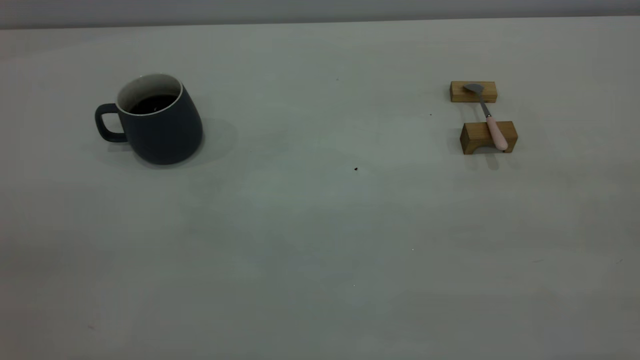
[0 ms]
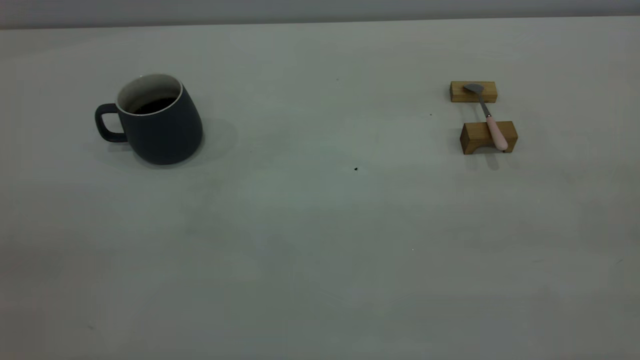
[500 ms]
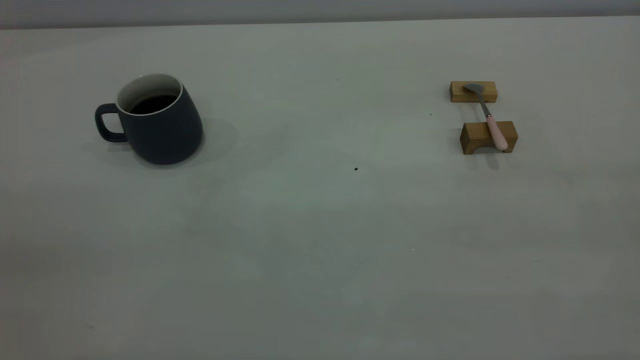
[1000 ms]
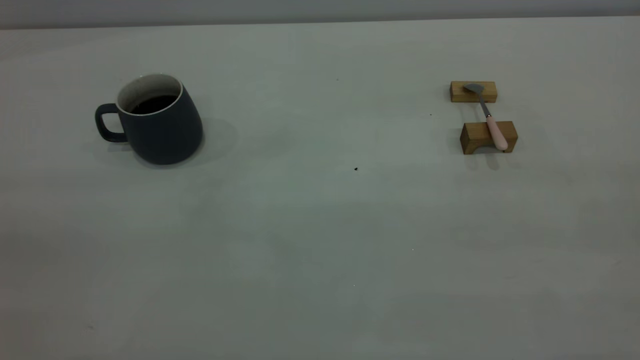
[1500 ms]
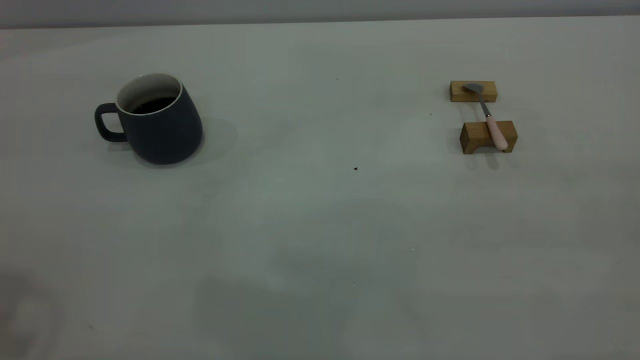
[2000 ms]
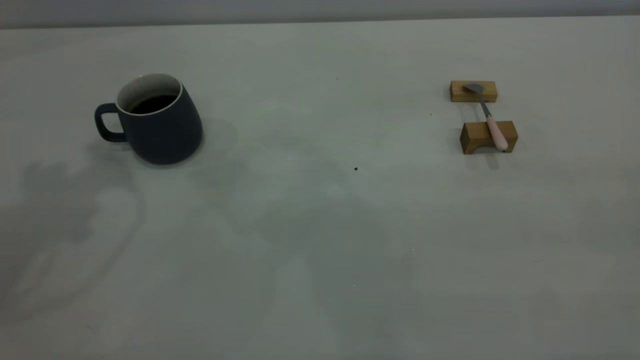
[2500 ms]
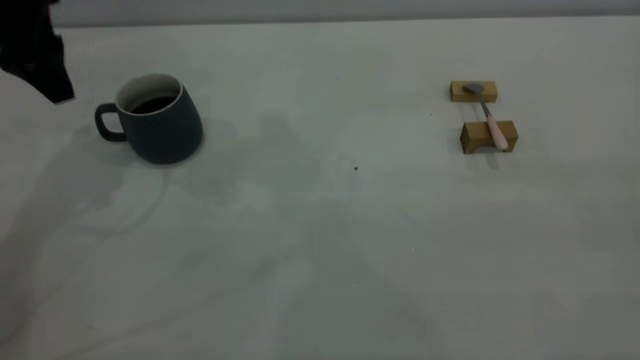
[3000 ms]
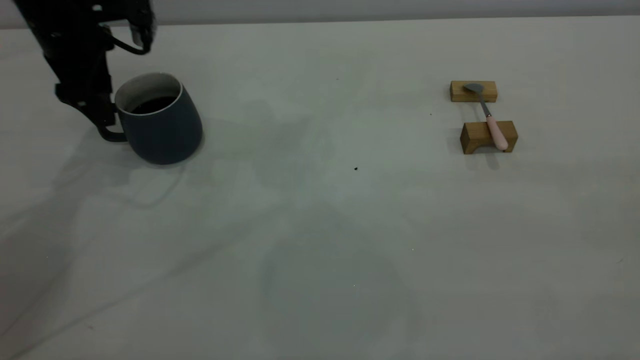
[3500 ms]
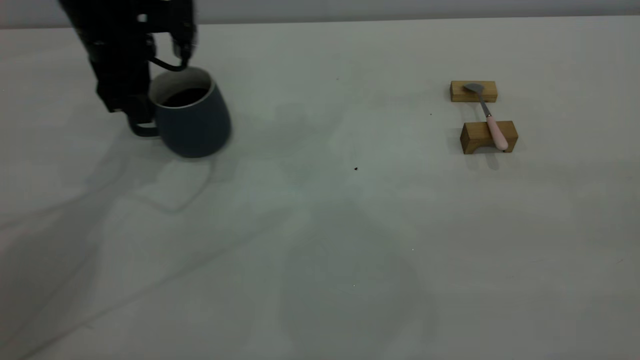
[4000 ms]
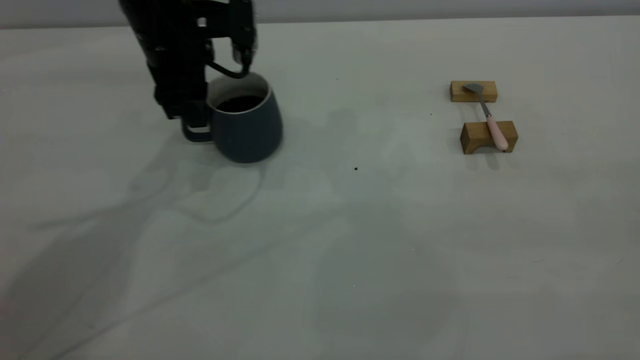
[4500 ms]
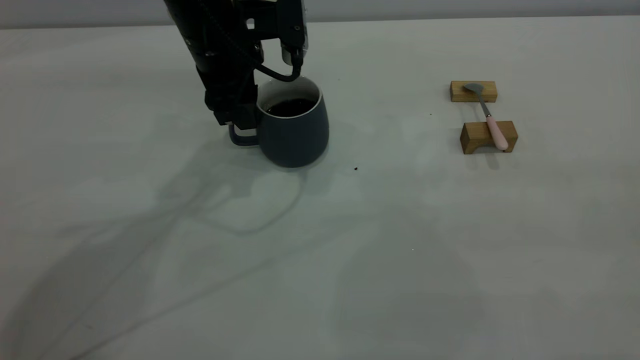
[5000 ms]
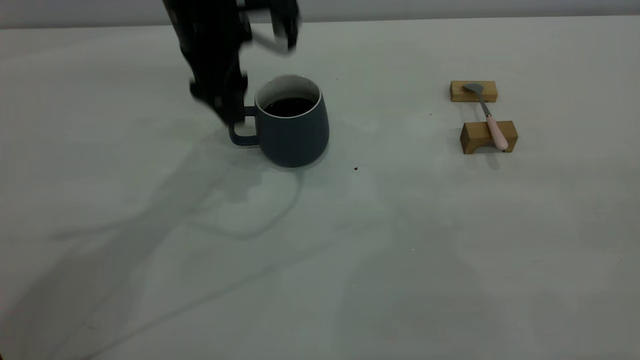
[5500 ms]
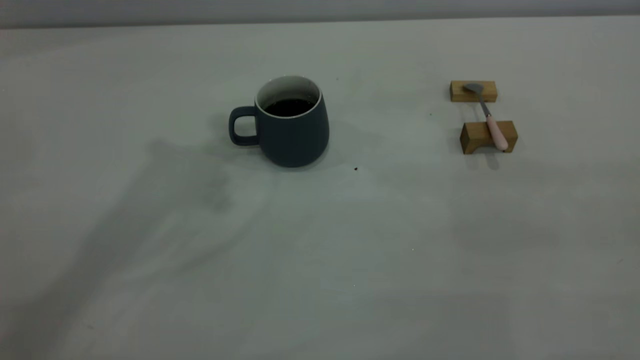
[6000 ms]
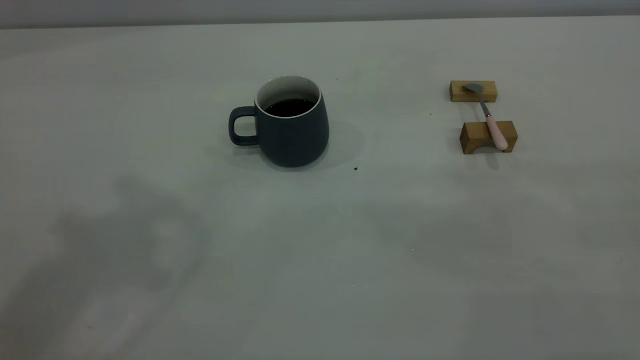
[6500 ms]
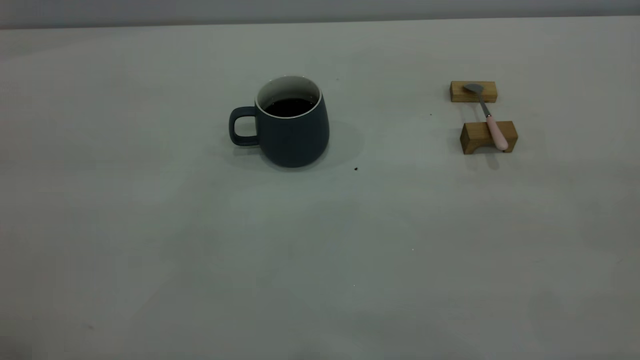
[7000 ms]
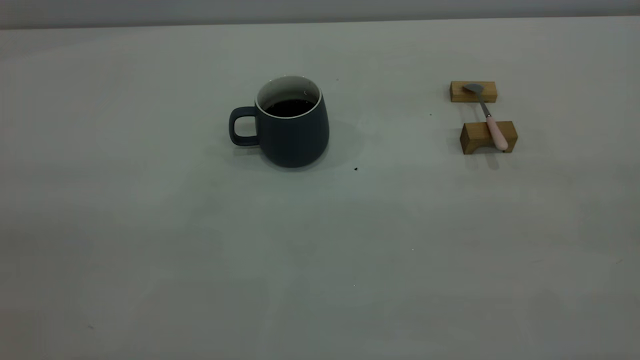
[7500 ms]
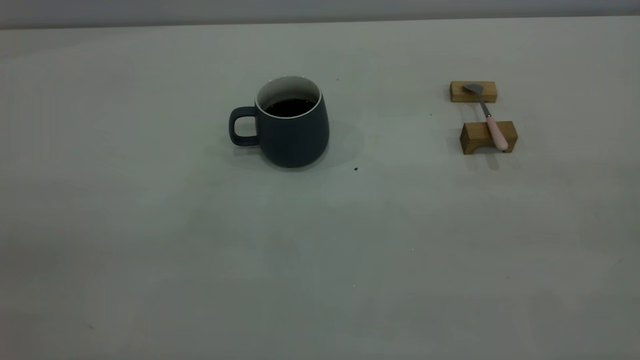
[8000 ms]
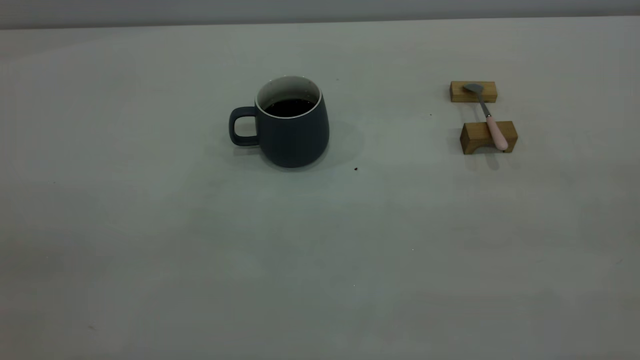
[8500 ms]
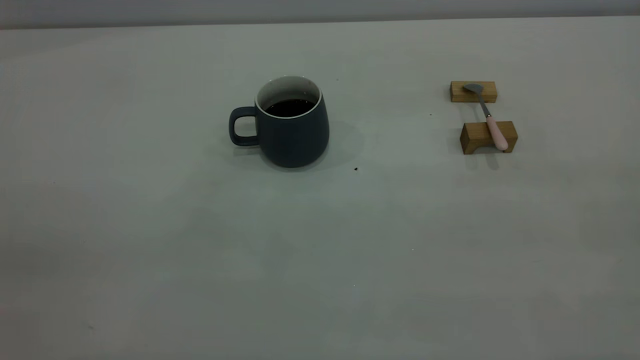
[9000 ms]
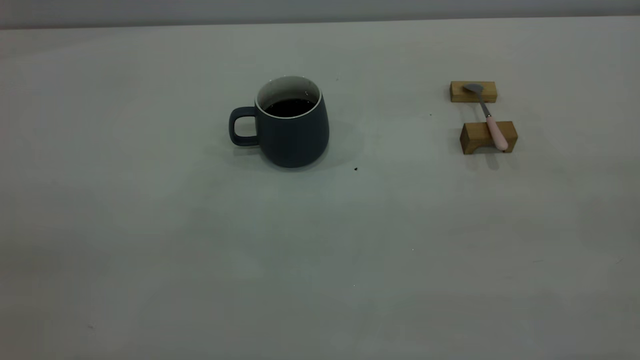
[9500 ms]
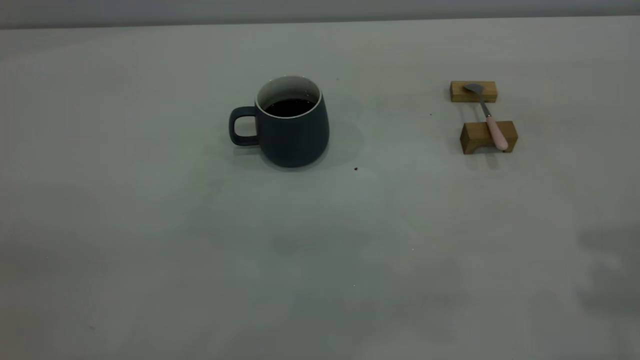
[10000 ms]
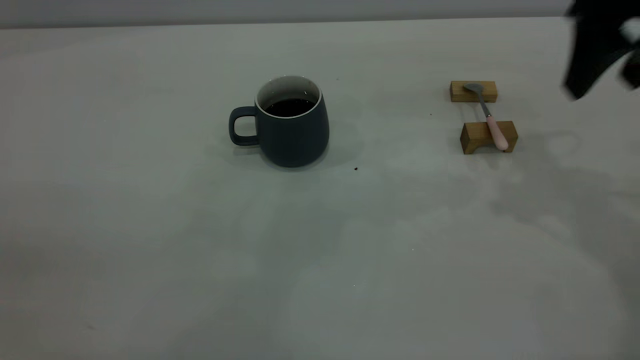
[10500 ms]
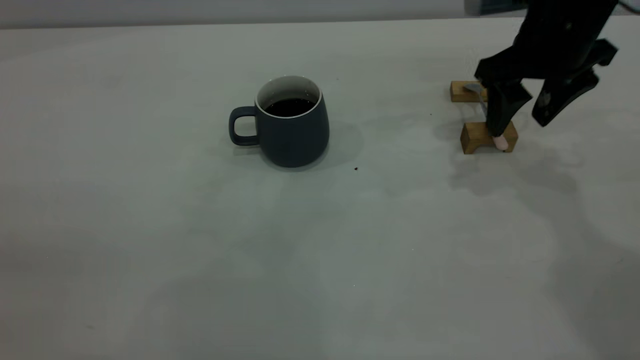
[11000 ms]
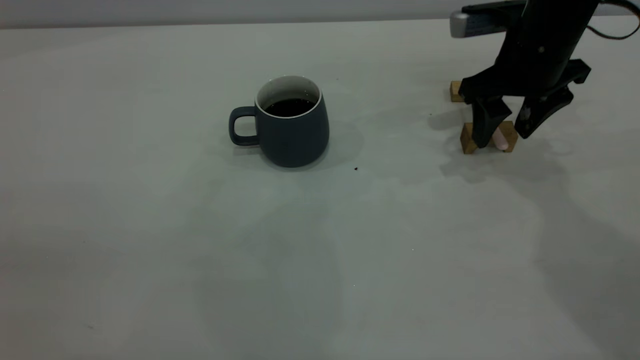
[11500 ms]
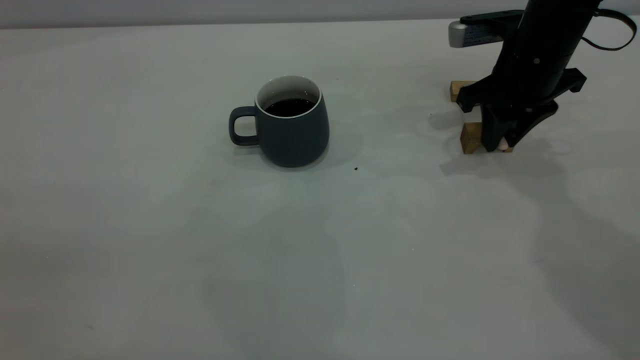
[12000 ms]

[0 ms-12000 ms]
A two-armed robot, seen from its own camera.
Step, 0 ms to 5500 ms: Move the cup with coffee to the center of view.
2000 ms to 4000 ms: The left gripper travels forward and downward by roughly 35 cm, and opens, then closes once more.
4000 ms to 6000 ms: The left gripper goes roughly 25 cm upward, and opens, then closes again.
10000 ms to 12000 ms: The right gripper moves downward and forward, about 30 cm, and closes.

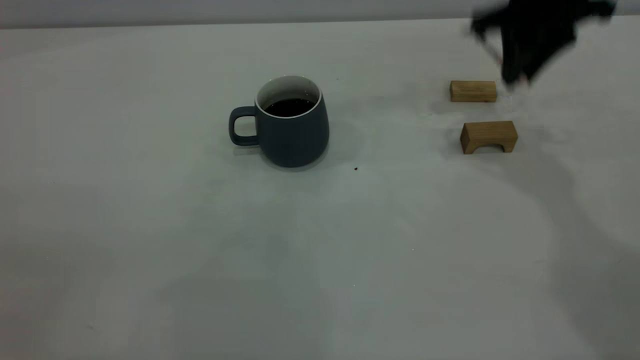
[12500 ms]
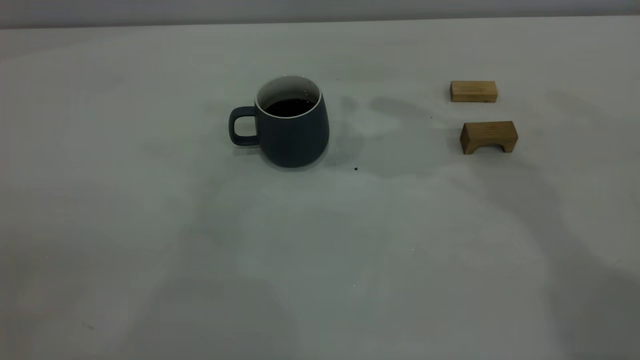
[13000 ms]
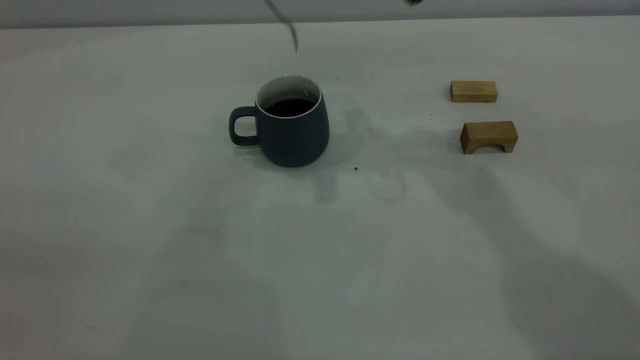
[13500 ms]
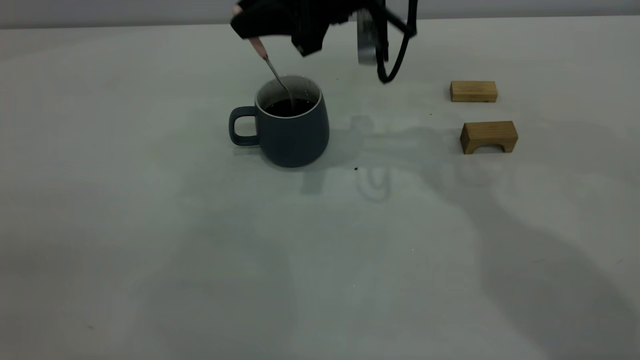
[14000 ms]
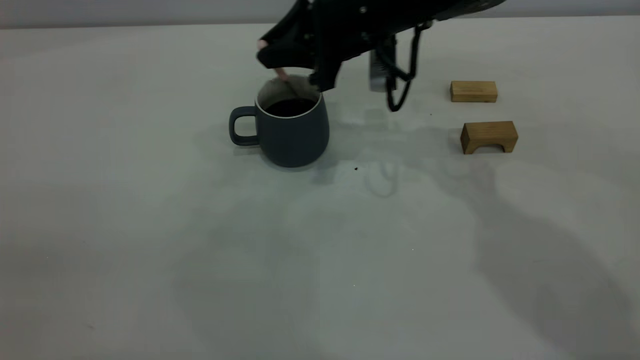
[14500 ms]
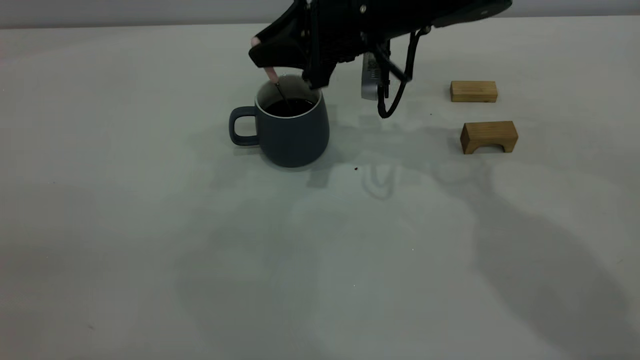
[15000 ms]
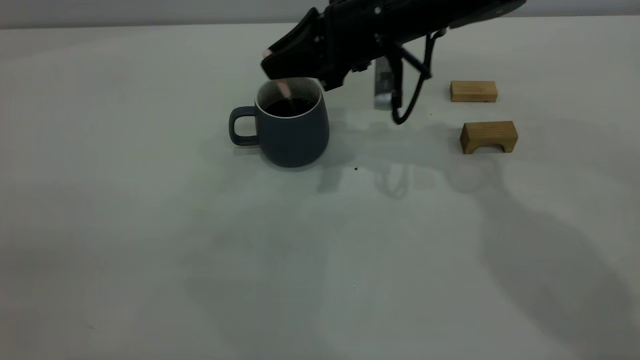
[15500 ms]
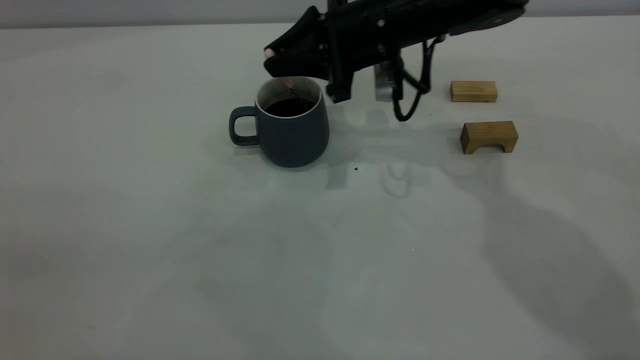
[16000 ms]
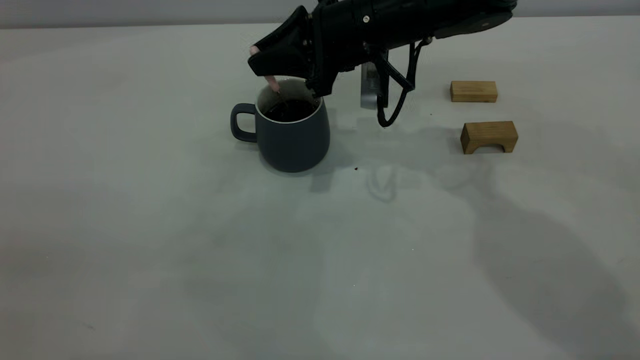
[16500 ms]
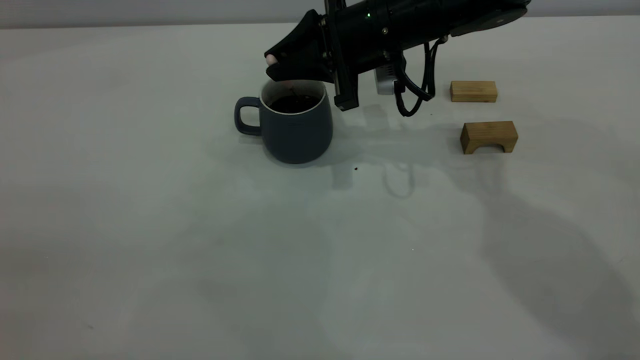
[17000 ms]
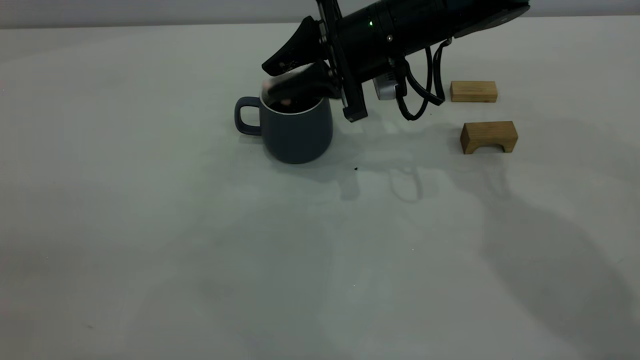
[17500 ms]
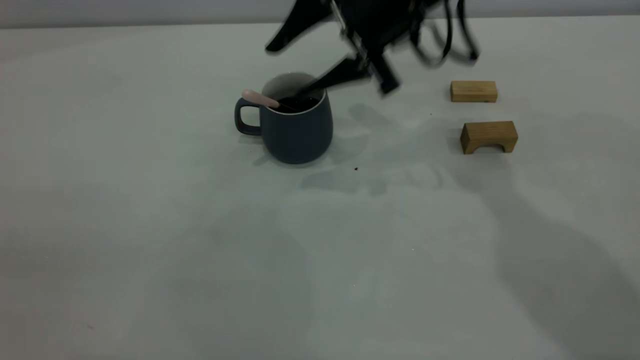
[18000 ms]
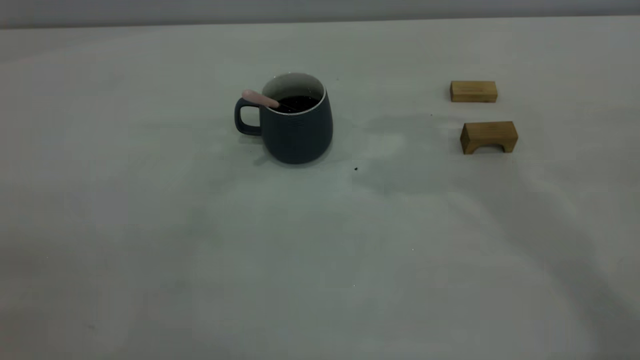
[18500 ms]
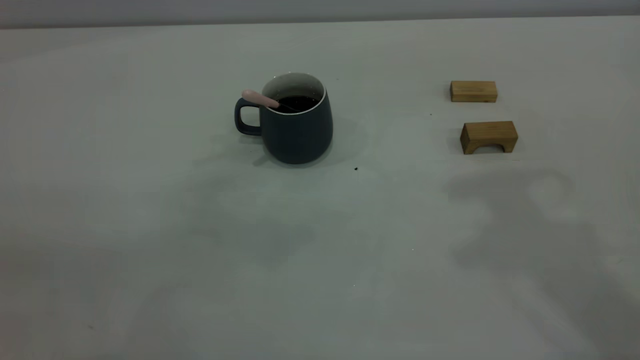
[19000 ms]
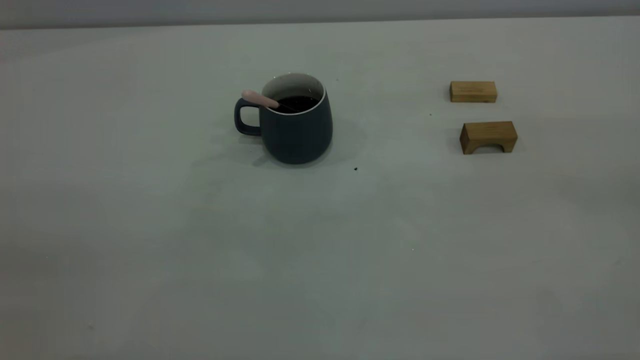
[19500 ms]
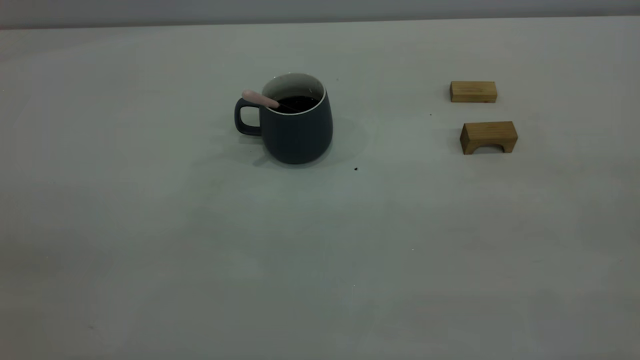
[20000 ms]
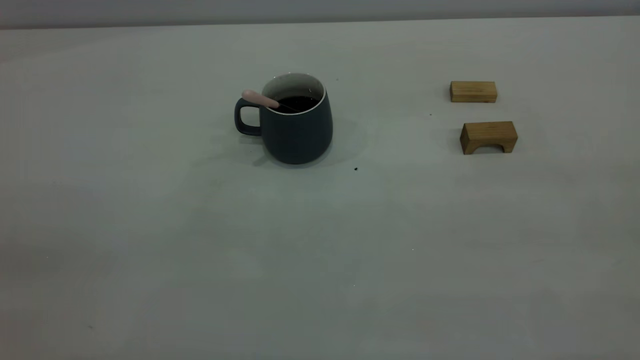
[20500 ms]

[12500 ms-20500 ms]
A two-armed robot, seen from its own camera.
Step, 12500 ms to 18000 ms: Stir the coffee in the cup.
12500 ms to 14500 ms: The right gripper goes about 15 cm to the left and downward.
14500 ms to 16500 ms: The grippers make only small movements.
16500 ms to 18500 ms: The right gripper heads upward, covering approximately 25 cm, and opens its fingers.
